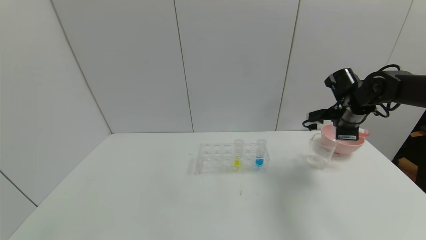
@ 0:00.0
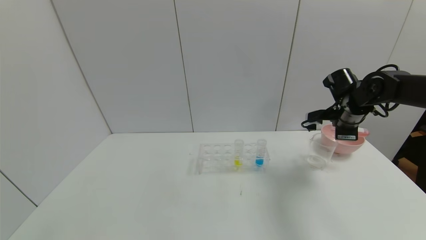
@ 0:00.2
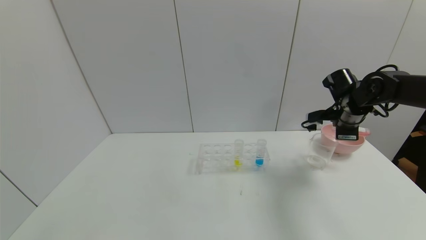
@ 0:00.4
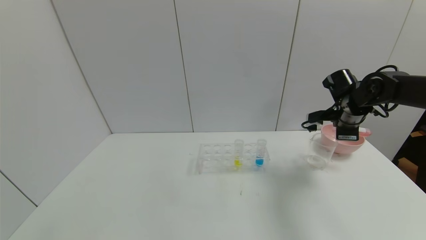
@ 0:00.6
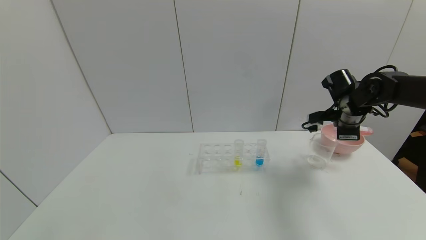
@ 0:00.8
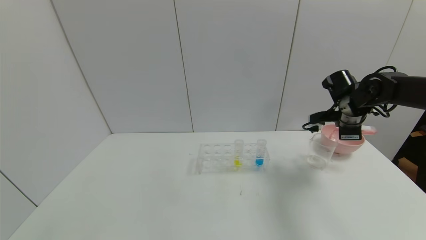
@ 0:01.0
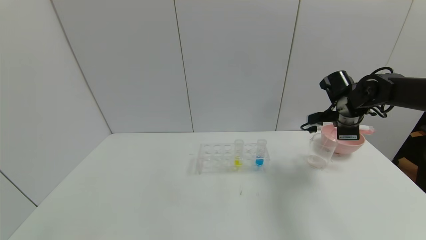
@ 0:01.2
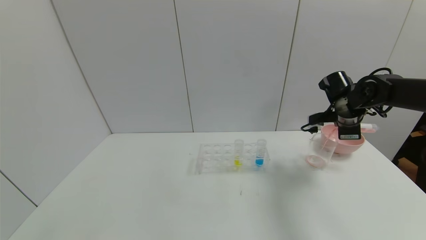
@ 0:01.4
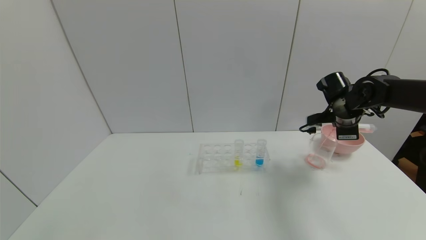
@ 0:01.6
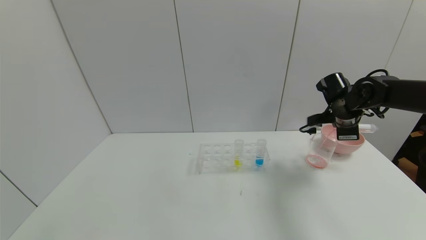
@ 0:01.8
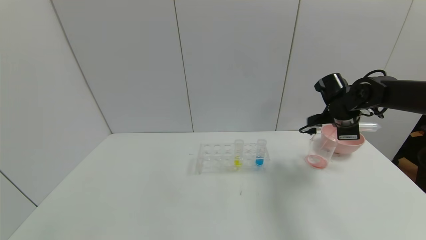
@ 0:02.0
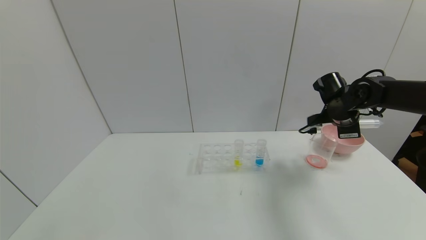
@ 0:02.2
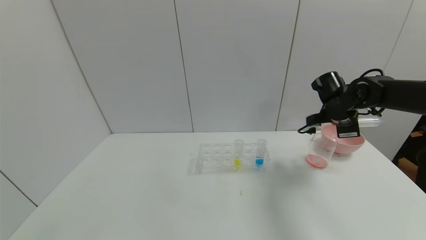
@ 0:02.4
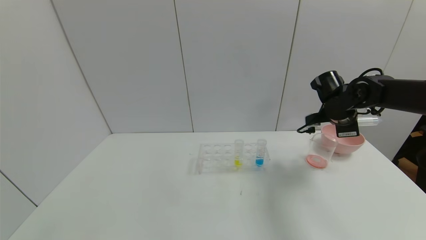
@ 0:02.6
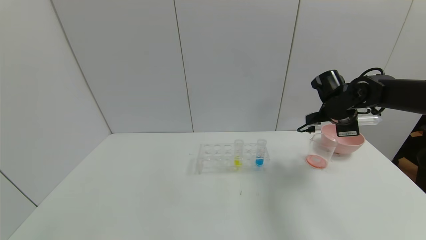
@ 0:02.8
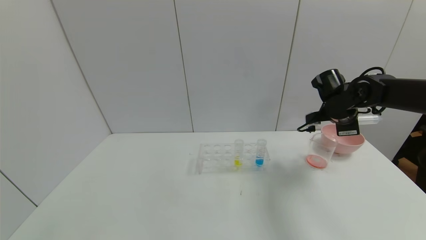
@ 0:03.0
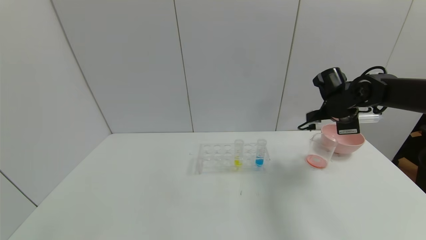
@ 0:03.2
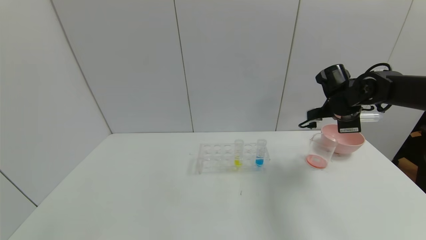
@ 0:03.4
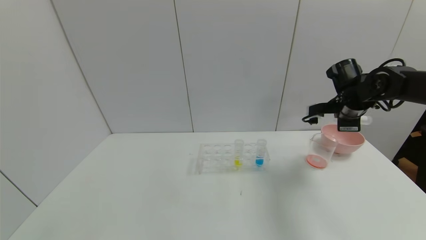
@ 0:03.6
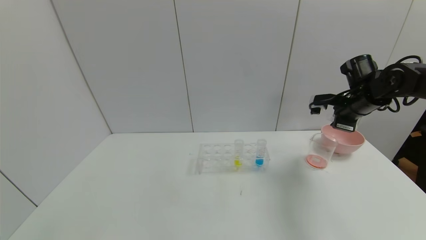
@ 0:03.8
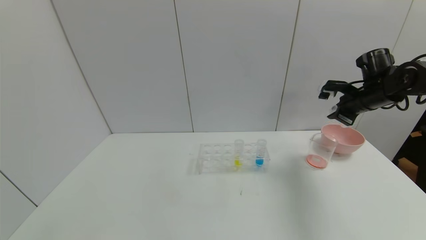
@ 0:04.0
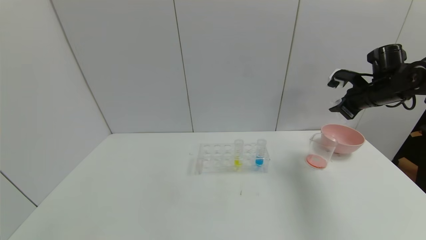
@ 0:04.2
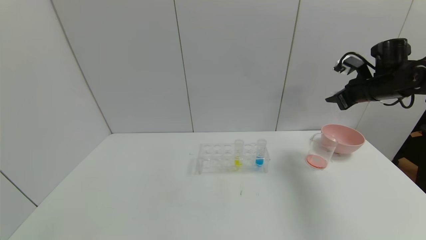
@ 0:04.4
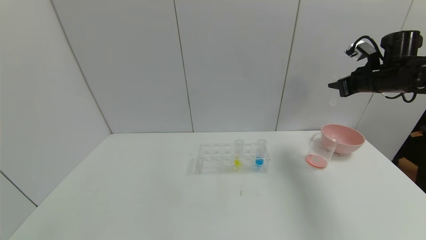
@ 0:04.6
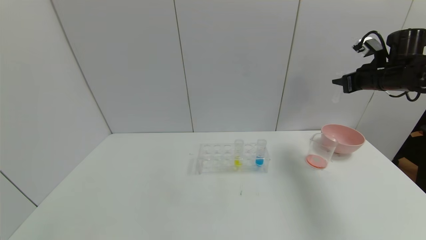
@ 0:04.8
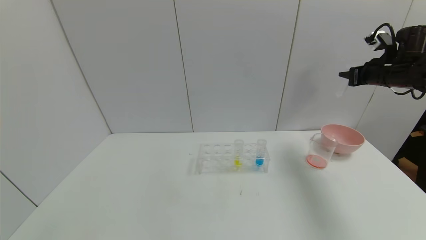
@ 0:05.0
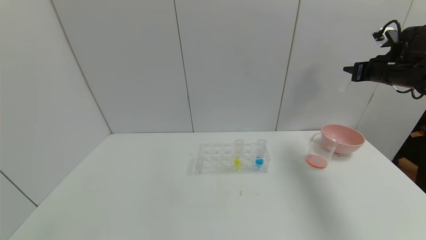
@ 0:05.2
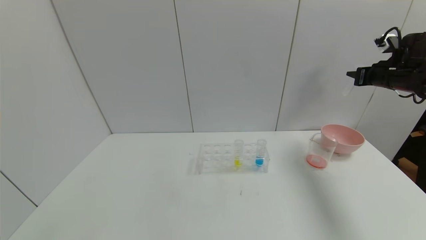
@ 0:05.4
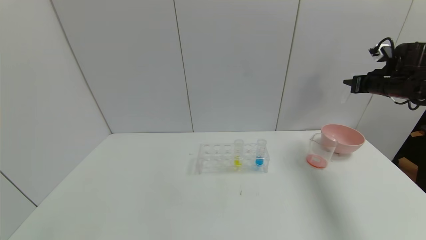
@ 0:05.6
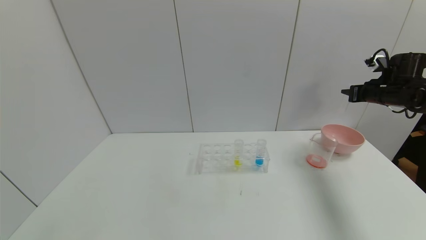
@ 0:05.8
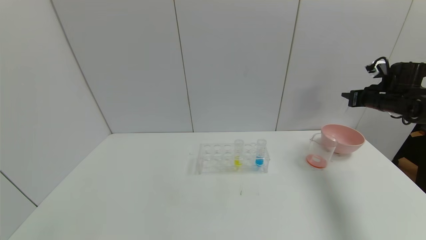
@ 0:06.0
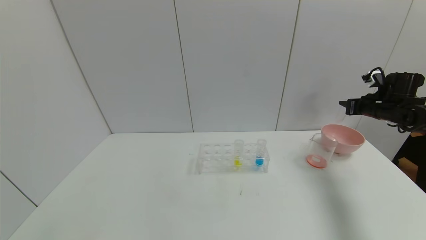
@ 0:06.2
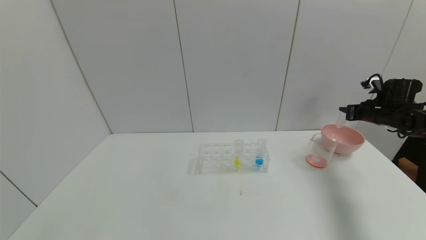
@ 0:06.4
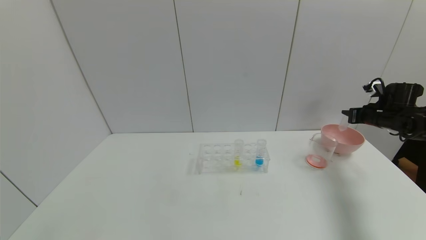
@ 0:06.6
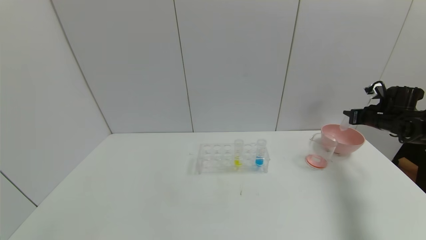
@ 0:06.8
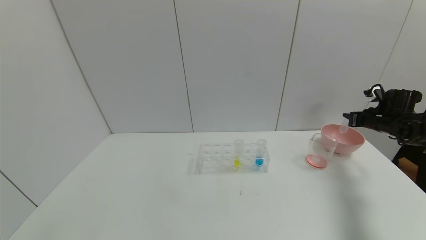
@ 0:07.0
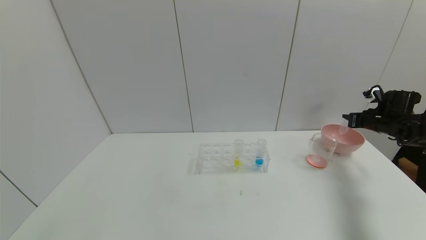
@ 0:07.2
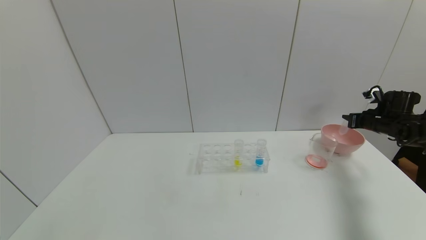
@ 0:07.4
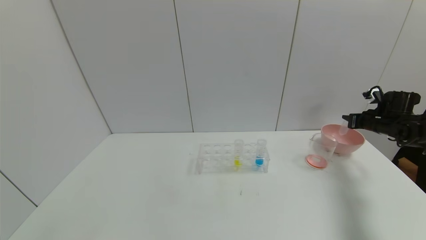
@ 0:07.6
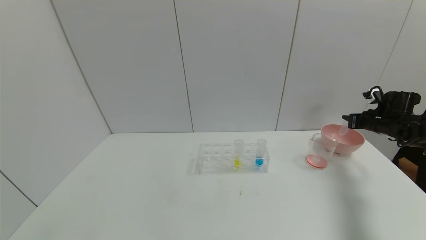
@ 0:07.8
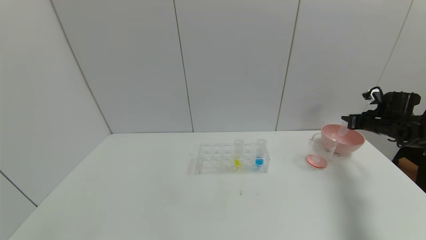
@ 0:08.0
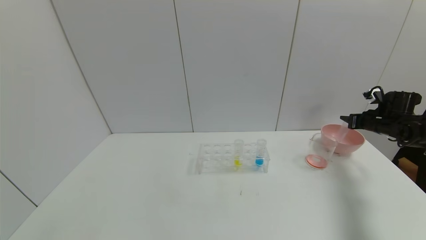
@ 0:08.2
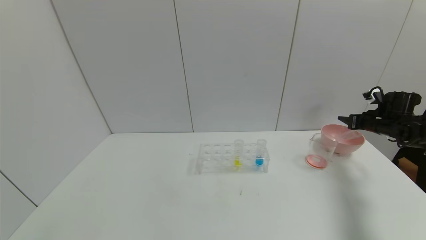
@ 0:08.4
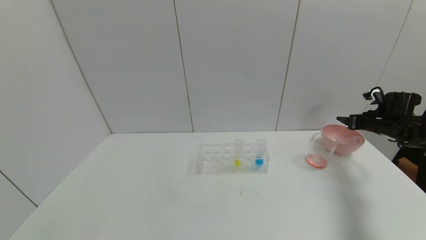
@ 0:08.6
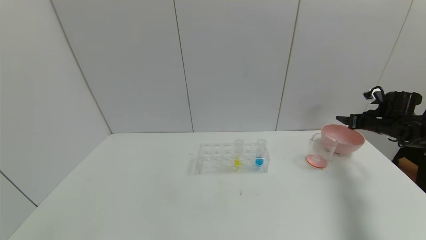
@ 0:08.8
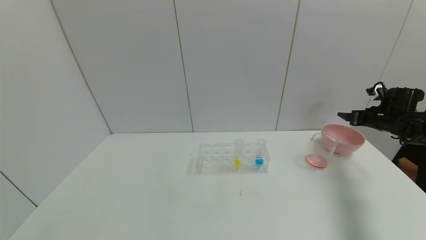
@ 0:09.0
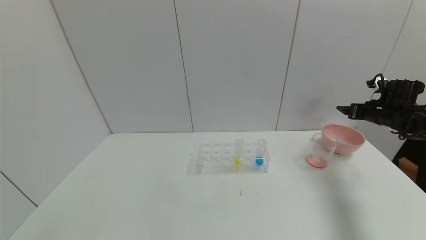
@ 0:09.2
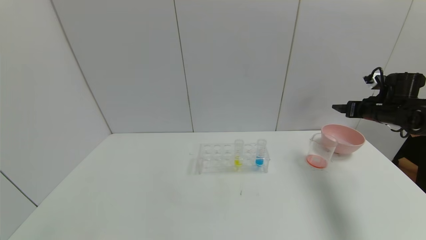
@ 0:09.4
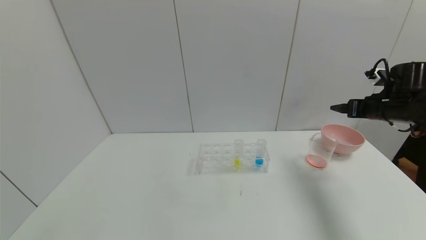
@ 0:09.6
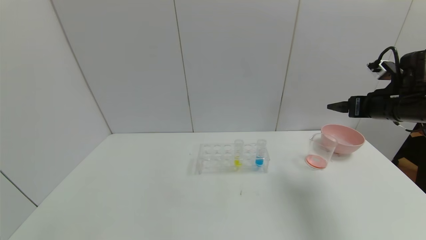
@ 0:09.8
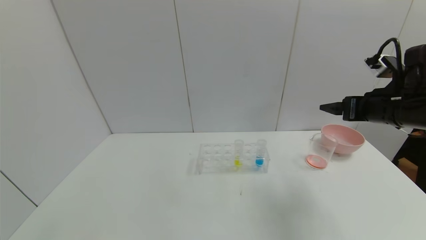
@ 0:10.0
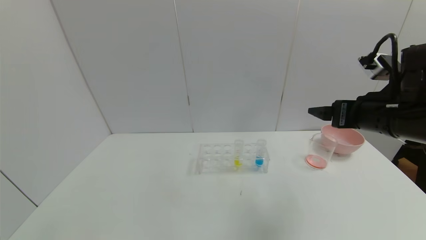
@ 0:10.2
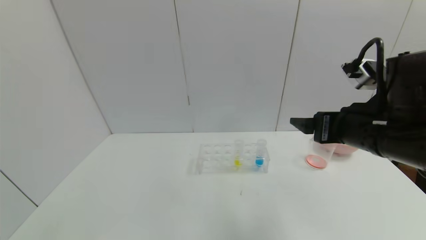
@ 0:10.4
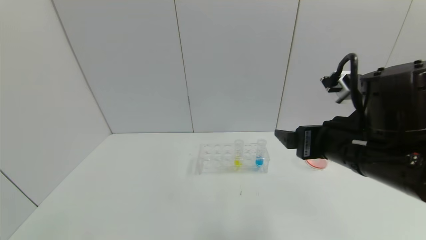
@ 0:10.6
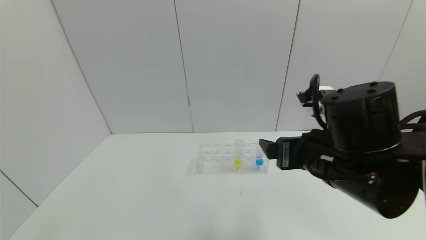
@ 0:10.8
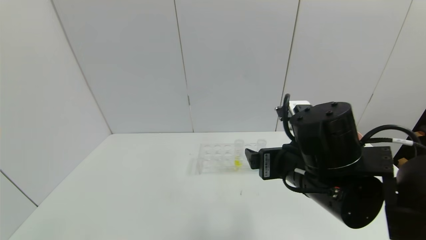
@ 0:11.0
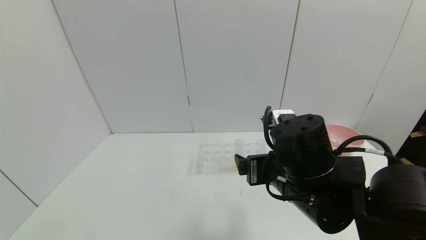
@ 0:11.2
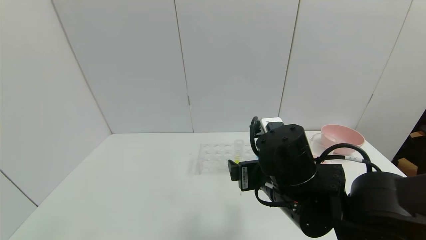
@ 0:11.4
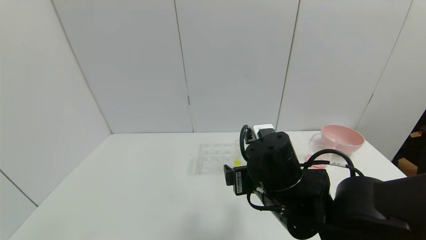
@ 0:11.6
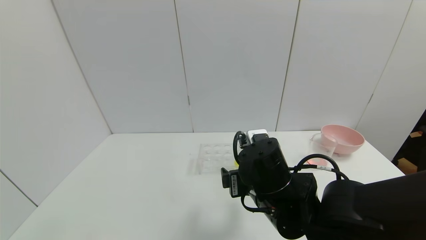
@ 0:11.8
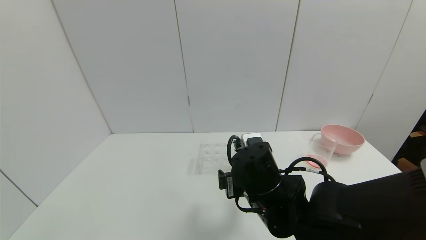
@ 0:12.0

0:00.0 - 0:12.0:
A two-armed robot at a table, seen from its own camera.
Task of the whole recording: pick up the test tube with yellow pigment and the test tube with red pigment by grippers and pour them into the beaker.
Step, 0:00.0 - 0:03.2: Pour the red reagent into the graduated cylinder with the right gripper.
Step, 0:03.4 - 0:08.4: Place the test tube into the bowl with the right gripper.
0:00.0 - 0:01.6: The grippers make only small movements.
0:01.6 - 0:03.0: The grippers make only small movements.
0:03.0 - 0:04.4: The right gripper moves to the right and upward, some 10 cm.
0:04.4 - 0:06.0: The right gripper is displaced to the right by roughly 5 cm.
0:06.0 - 0:07.6: The right gripper heads downward, covering about 5 cm.
0:07.6 - 0:09.0: The right gripper opens.
0:09.0 - 0:10.4: The right gripper shifts roughly 35 cm to the left, backward and upward.
0:10.4 - 0:12.0: The right gripper travels to the left and downward by about 20 cm.

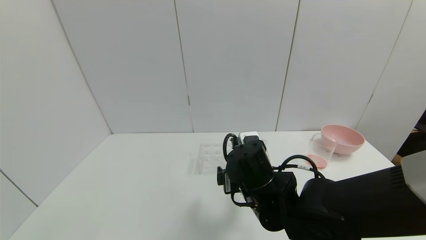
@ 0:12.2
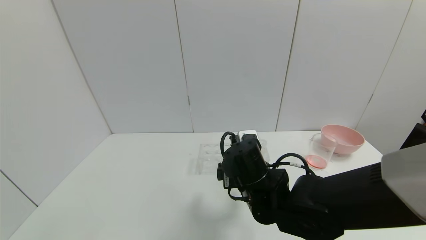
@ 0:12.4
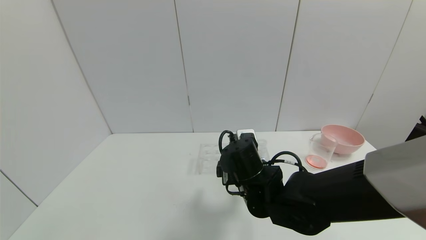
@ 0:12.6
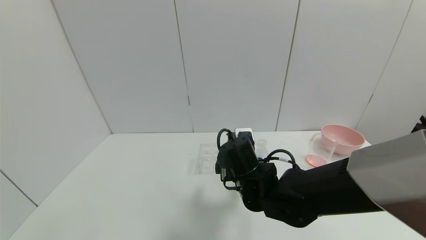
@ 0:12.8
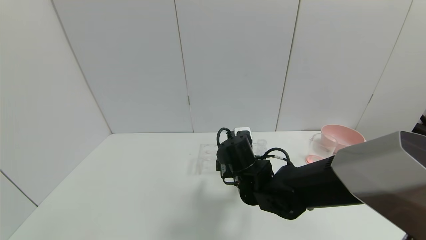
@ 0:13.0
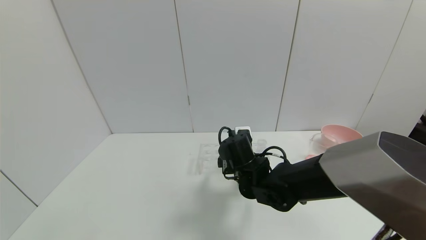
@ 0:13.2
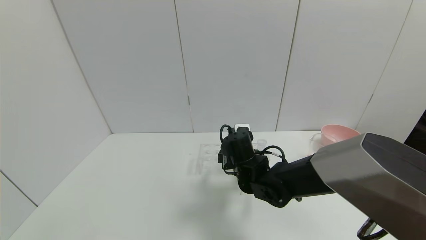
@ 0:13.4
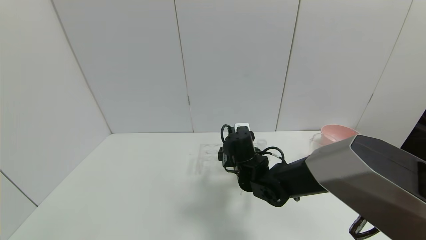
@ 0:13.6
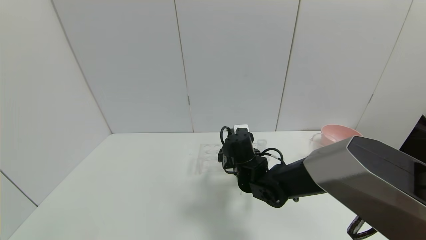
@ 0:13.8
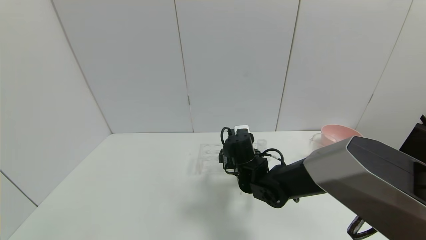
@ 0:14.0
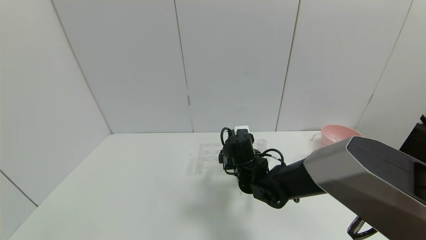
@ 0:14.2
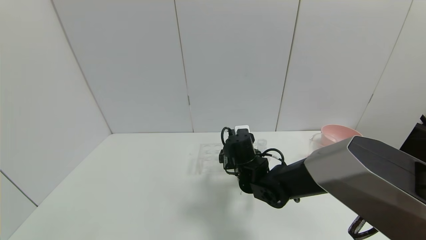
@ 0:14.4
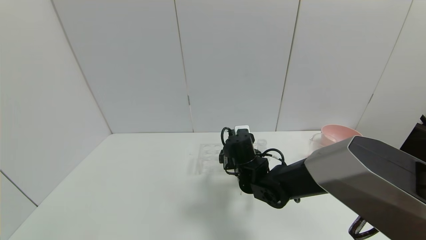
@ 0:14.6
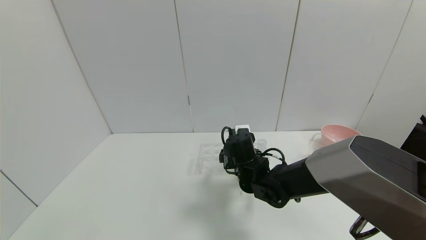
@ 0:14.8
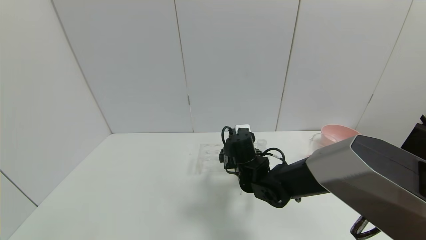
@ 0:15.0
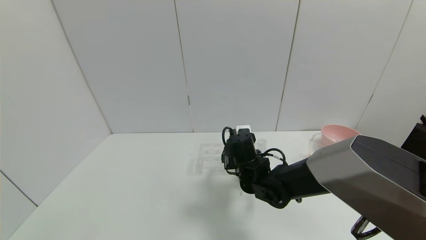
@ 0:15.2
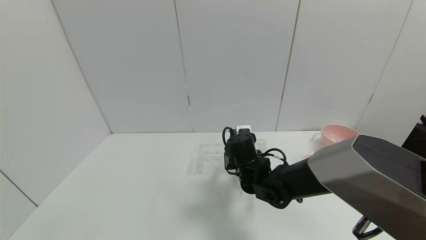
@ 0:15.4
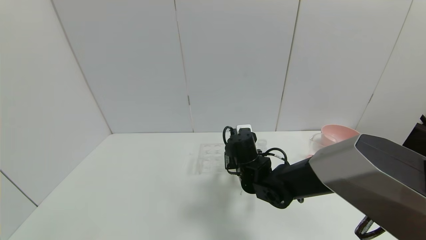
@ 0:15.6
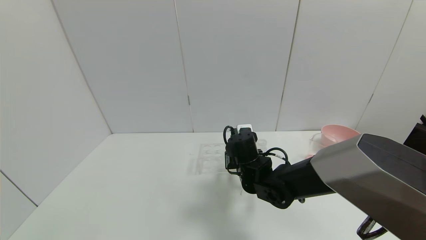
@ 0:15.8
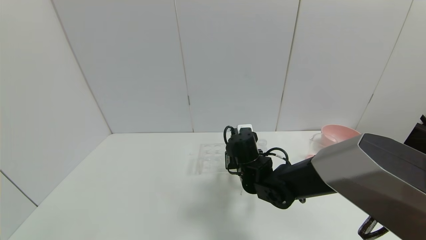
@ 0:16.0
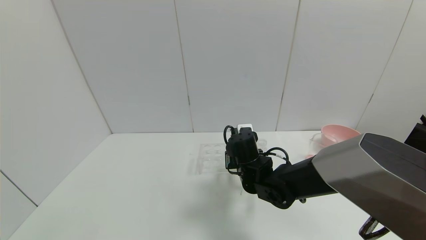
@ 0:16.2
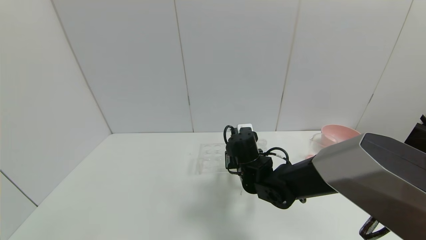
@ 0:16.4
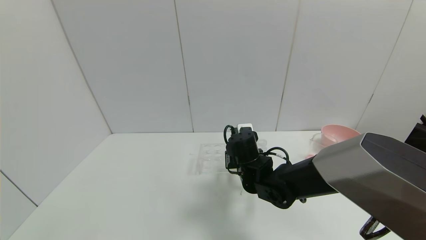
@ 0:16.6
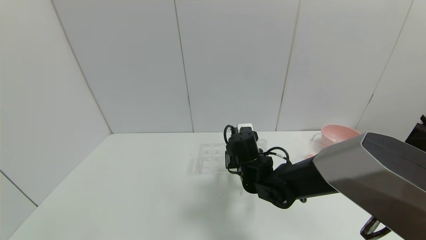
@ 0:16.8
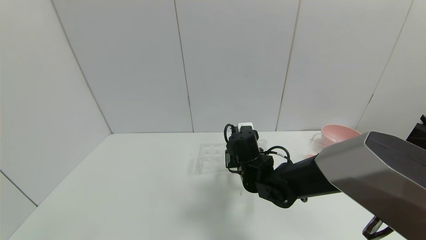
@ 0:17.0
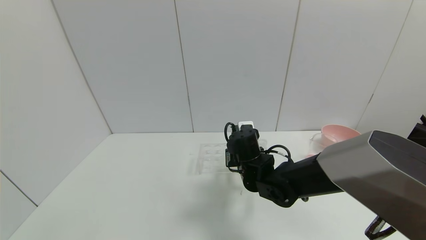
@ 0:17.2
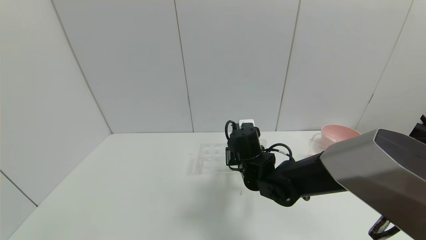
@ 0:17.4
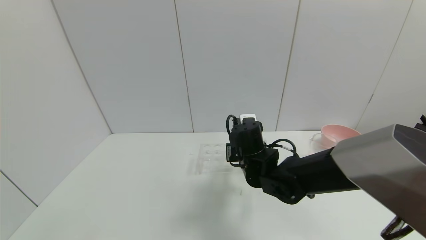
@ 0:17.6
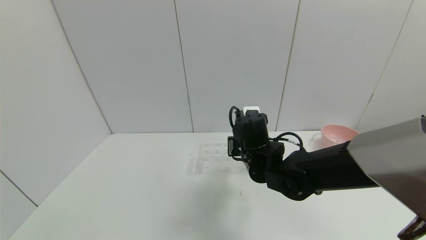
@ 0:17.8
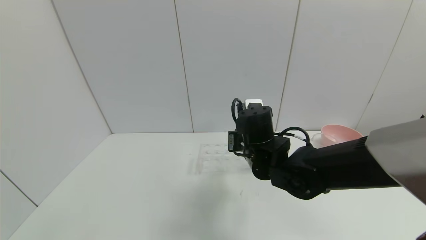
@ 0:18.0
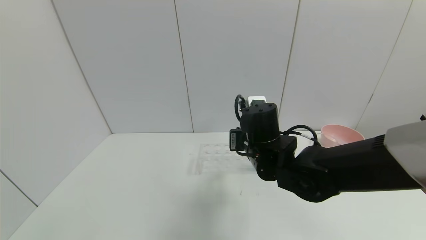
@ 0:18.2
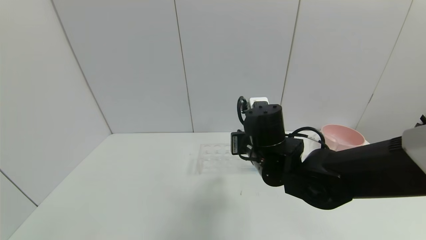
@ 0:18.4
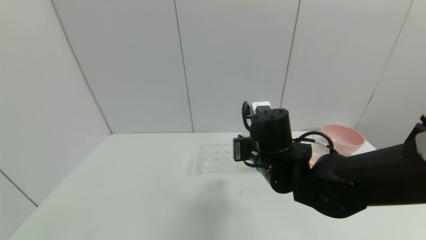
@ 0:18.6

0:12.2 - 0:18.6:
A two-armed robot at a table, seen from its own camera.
Task of the whole recording: pick up the test tube with yellow pigment and the test tube with red pigment by grippers and pour them into the beaker.
Step, 0:12.2 - 0:16.2: Grasp the yellow reagent with the right gripper.
0:12.2 - 0:13.8: The right gripper heads forward and downward, covering about 10 cm.
0:13.8 - 0:15.4: The right gripper closes.
0:15.4 - 0:17.0: The right gripper closes up.
0:17.0 - 0:18.6: The right gripper goes roughly 10 cm upward and backward.
